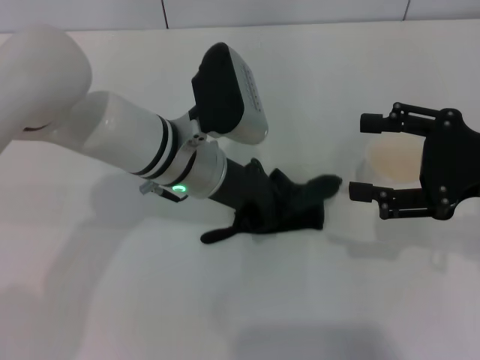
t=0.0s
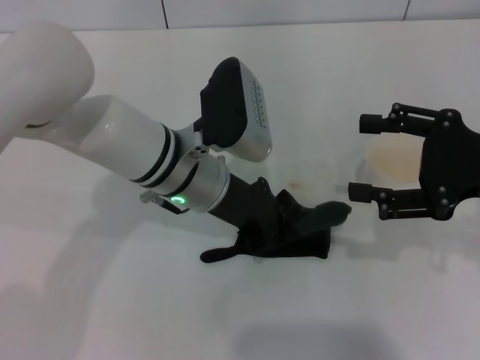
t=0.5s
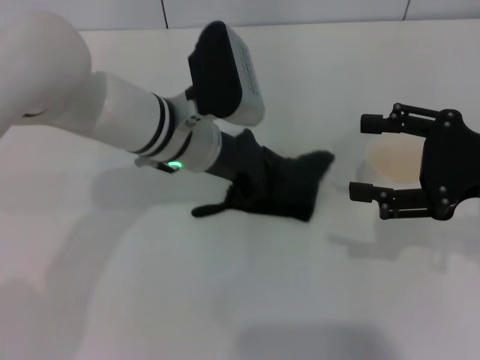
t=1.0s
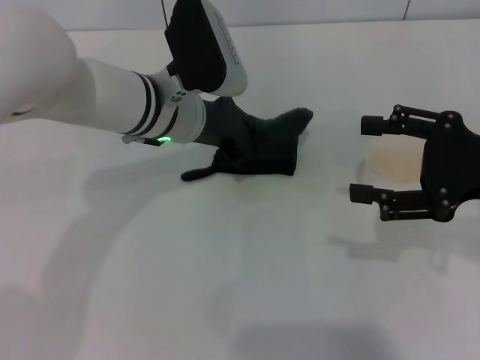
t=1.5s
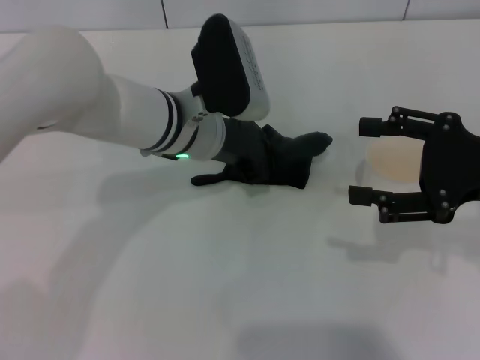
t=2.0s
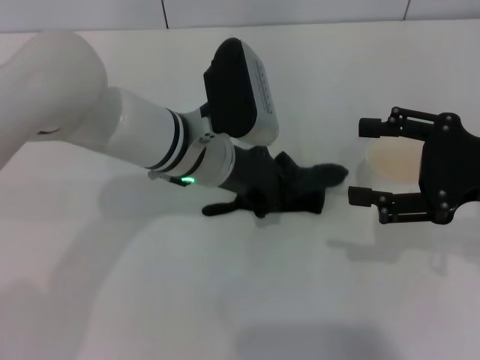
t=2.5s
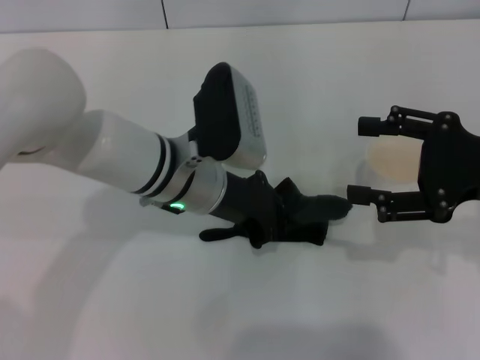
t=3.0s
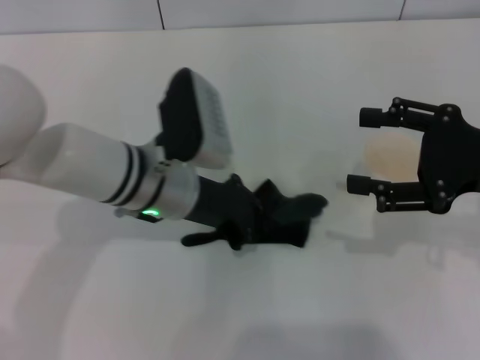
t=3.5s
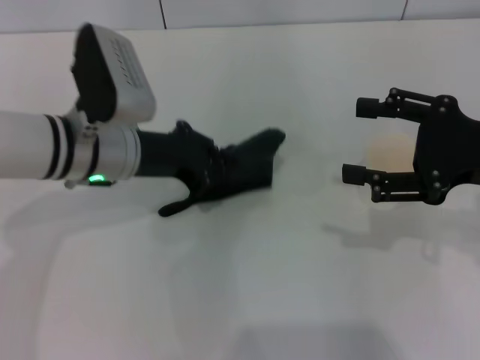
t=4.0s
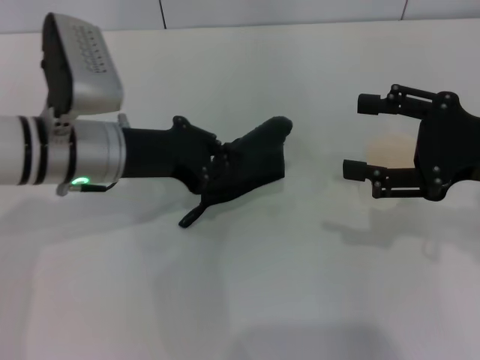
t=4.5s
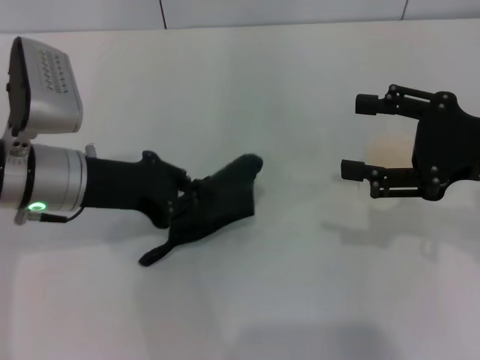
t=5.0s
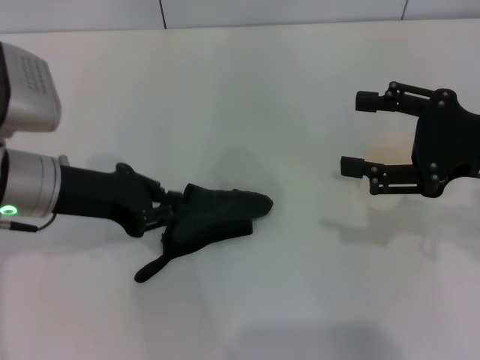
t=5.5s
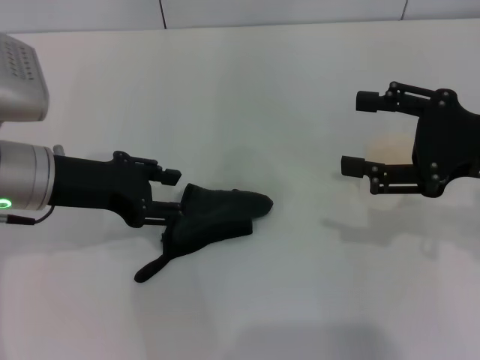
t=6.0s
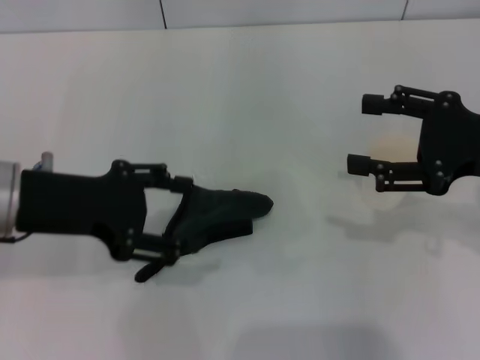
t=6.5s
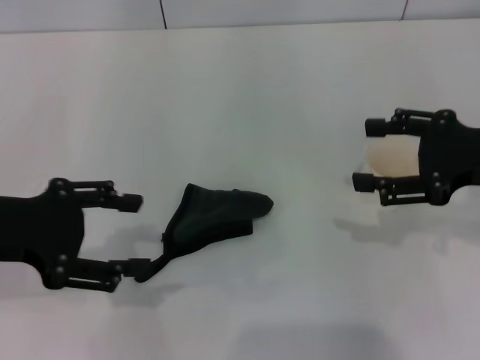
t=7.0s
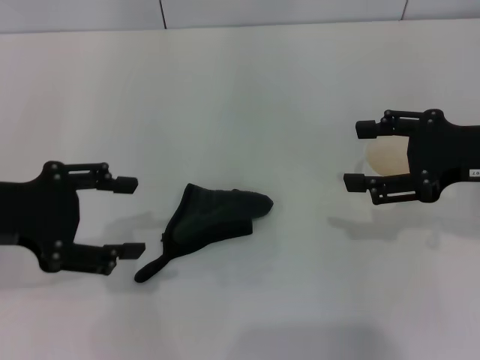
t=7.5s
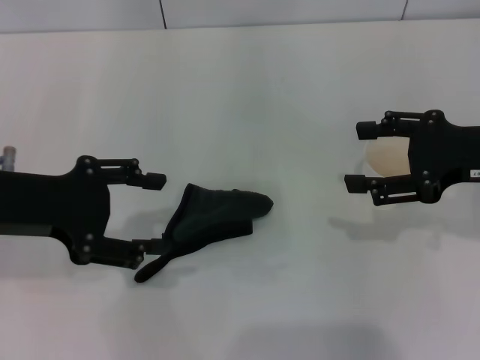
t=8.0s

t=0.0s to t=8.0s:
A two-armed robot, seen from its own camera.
Step, t=0.0s to t=3.0s: Wipe the stains off the table with the left gripper.
Step, t=3.5s to t=6.0s: Place the rag on the table with the left gripper.
t=0.0s to t=2.0s: The grippers make only small movements.
t=2.0s to t=4.0s: The left gripper travels to the left by some 10 cm.
t=4.0s to t=6.0s: The left gripper goes roughly 5 cm to the left, and opens.
t=6.0s to t=8.0s: The left gripper shifts by roughly 5 cm, and opens up.

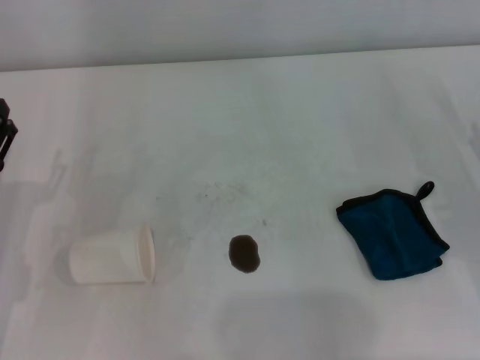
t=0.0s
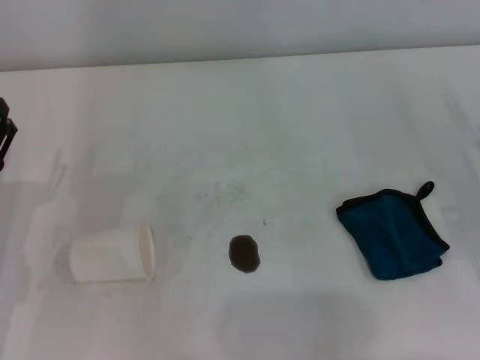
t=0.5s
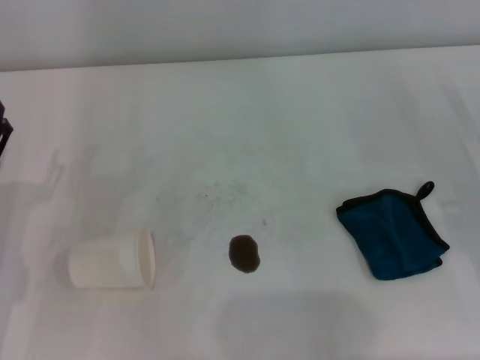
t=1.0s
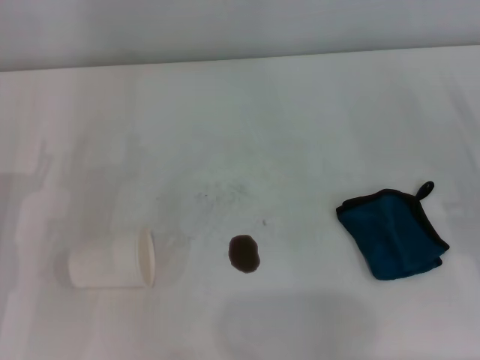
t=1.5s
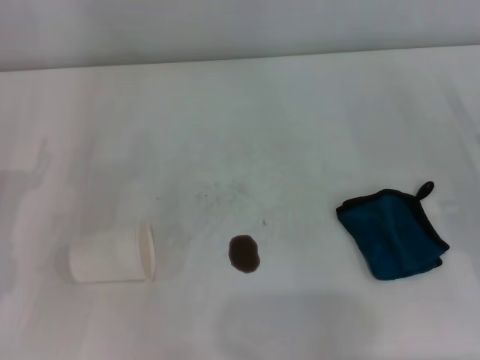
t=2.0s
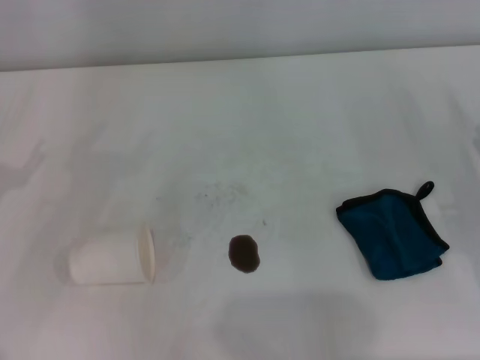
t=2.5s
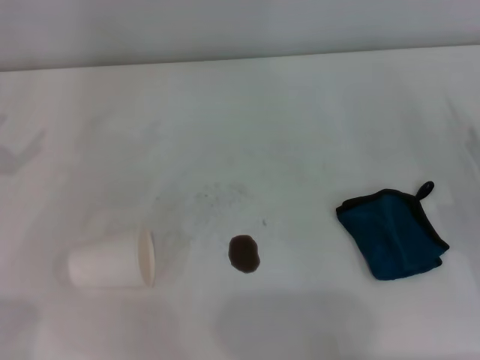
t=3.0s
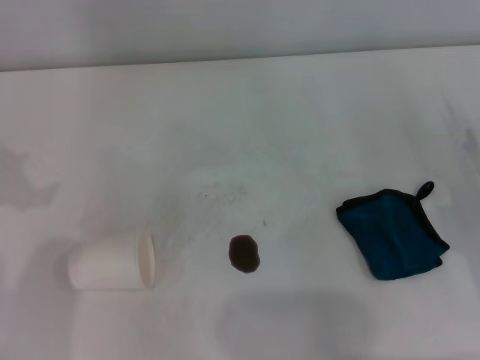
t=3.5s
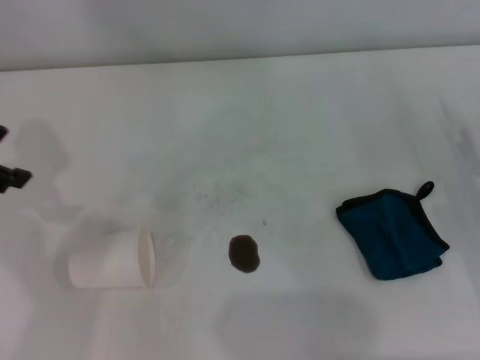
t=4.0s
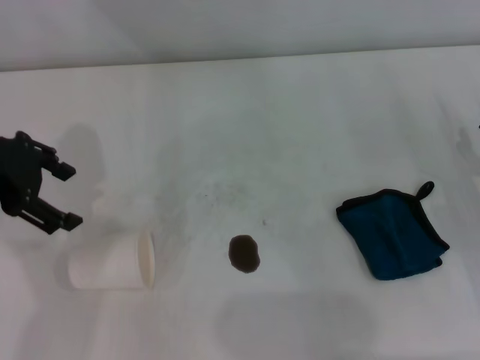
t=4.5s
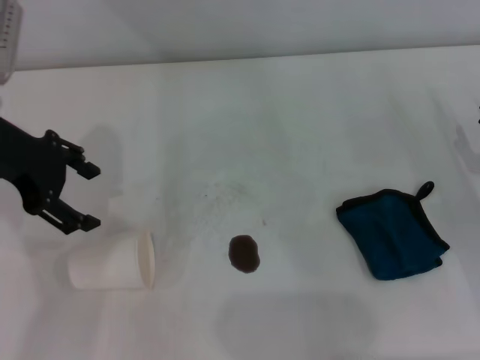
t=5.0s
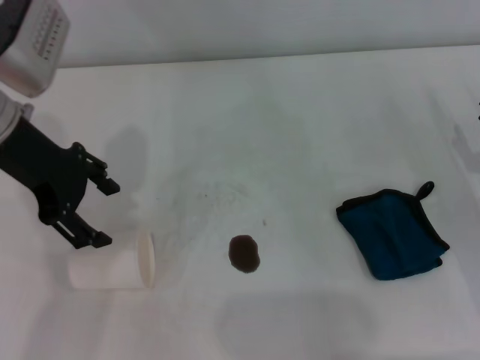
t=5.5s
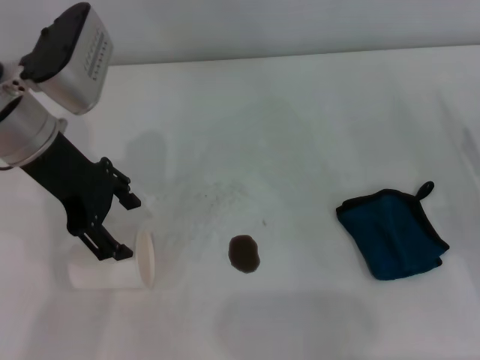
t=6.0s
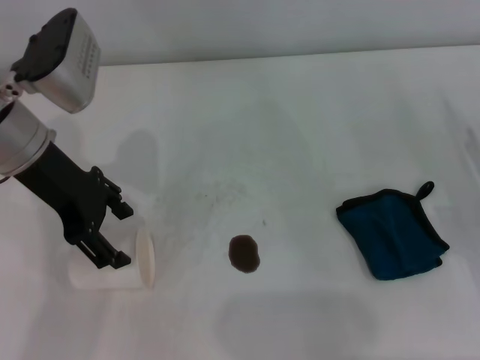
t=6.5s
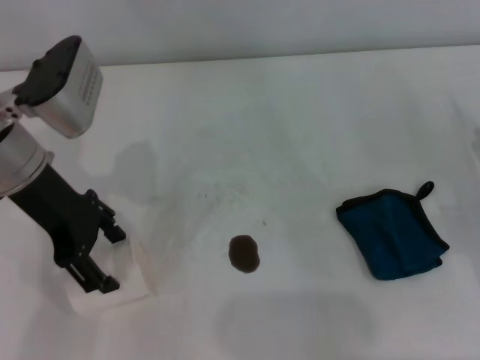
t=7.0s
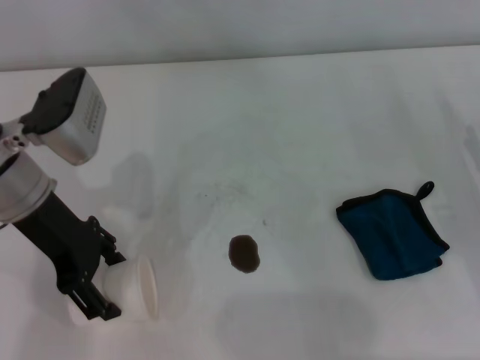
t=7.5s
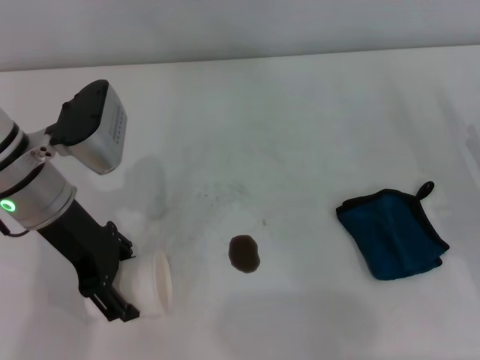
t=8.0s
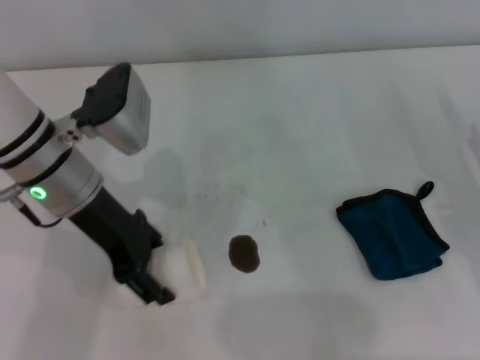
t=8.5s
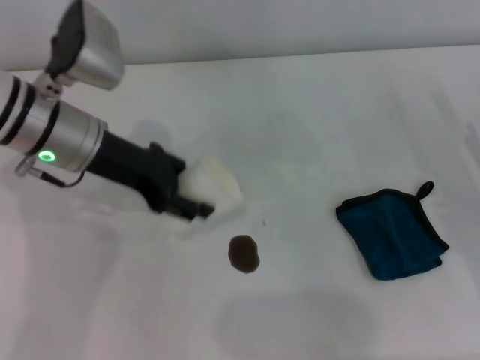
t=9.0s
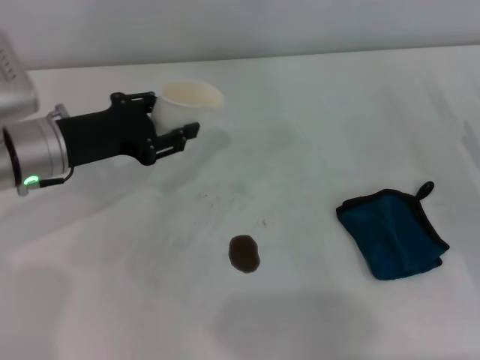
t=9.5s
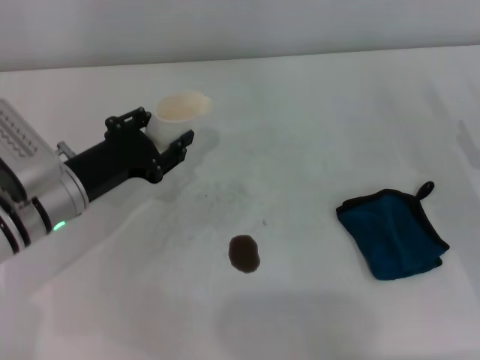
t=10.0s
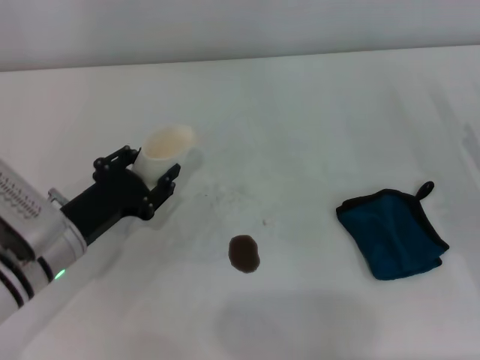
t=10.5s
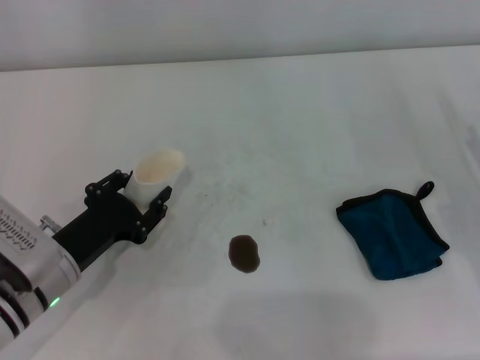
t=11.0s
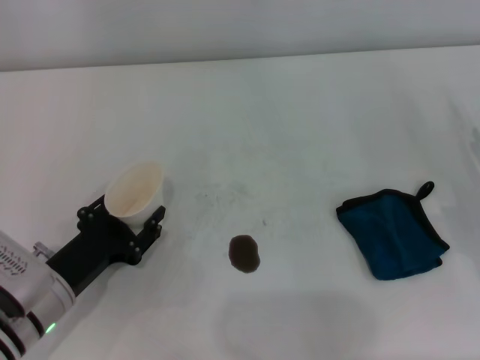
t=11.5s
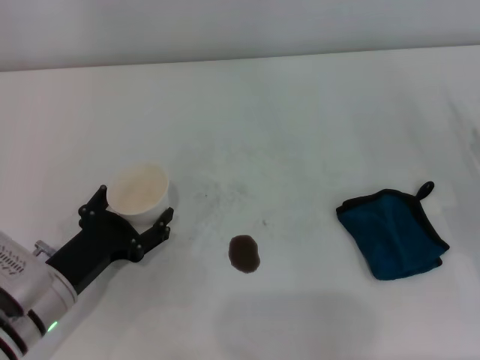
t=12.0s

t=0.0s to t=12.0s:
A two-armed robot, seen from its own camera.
Step, t=0.0s to t=8.0s: Grasp the paper cup with the left gripper.
Step, t=8.5s to t=11.5s: Stand the paper cup upright with the left gripper.
t=4.0s to t=6.0s: The left gripper moves to the right and downward, about 15 cm.
t=6.0s to t=8.0s: The left gripper moves downward, some 5 cm.
t=8.0s to t=10.0s: The left gripper heads downward, covering approximately 5 cm, and closes its fingers.
t=10.0s to t=12.0s: The left gripper shifts about 10 cm backward and downward, and opens up.

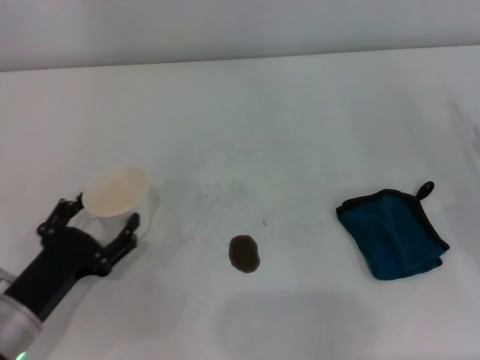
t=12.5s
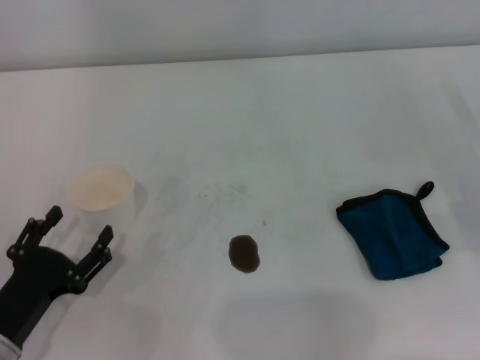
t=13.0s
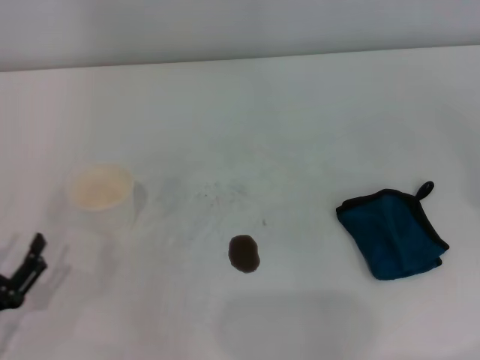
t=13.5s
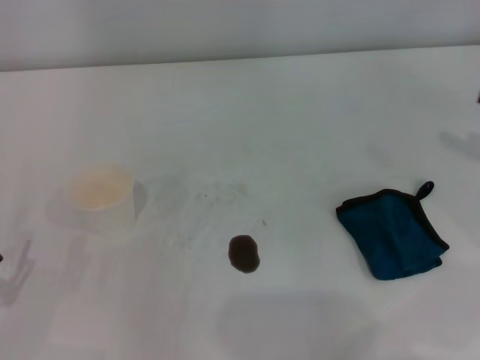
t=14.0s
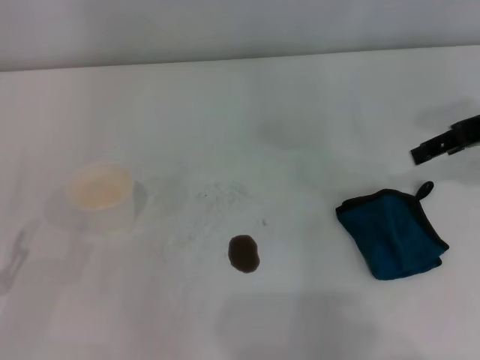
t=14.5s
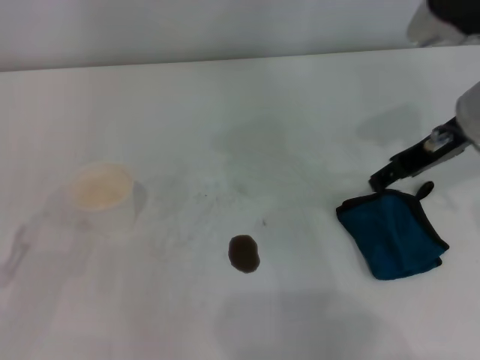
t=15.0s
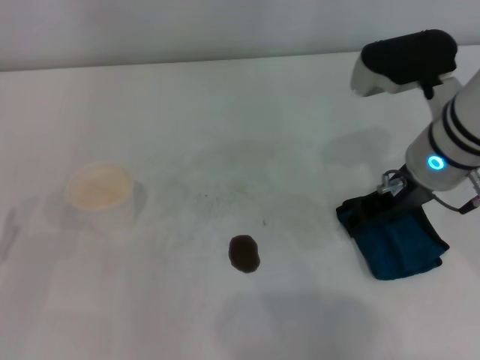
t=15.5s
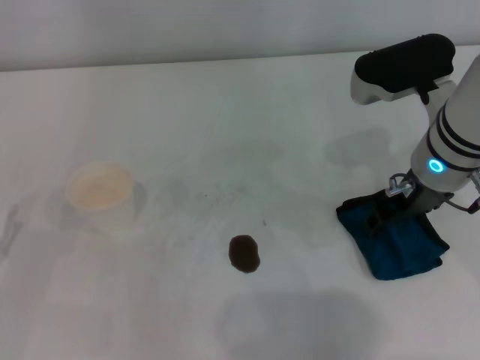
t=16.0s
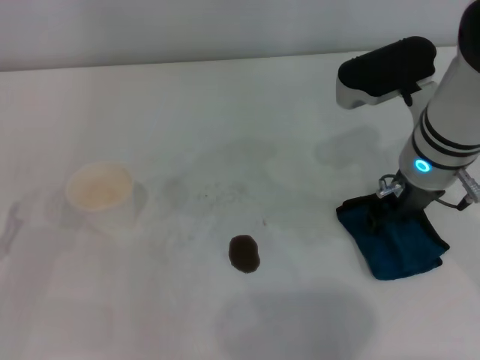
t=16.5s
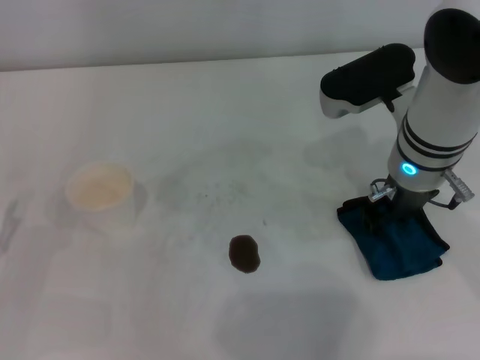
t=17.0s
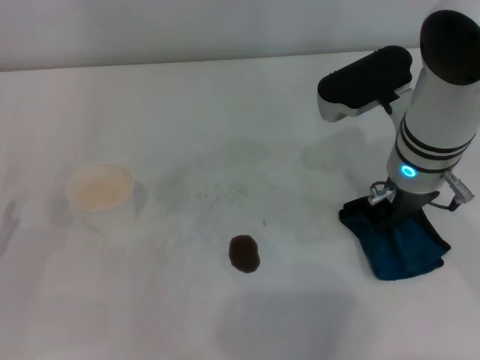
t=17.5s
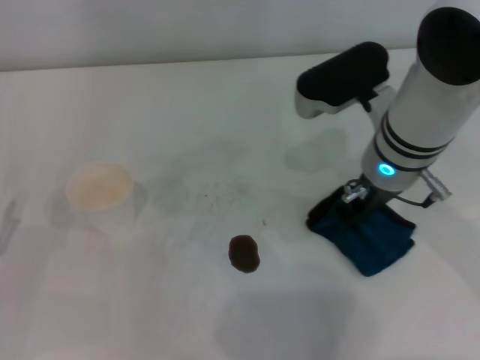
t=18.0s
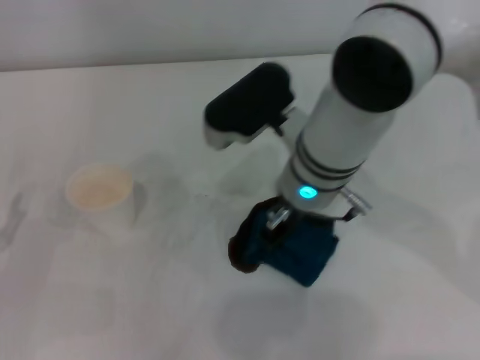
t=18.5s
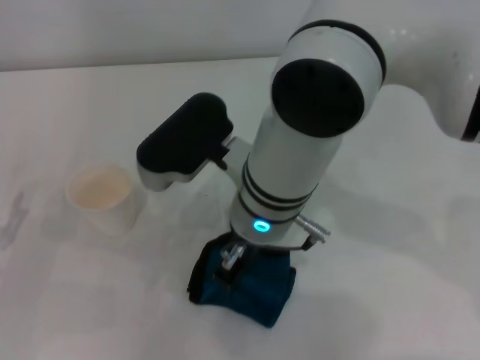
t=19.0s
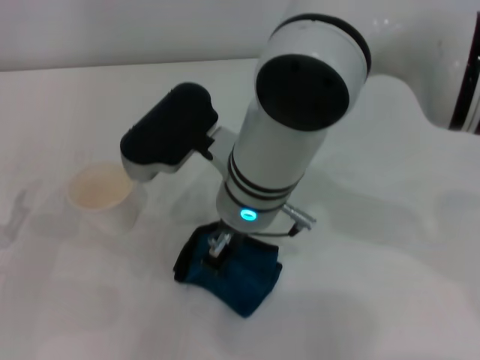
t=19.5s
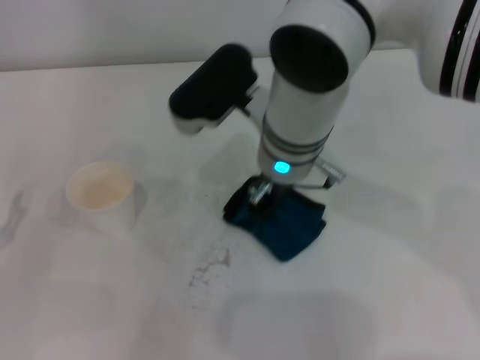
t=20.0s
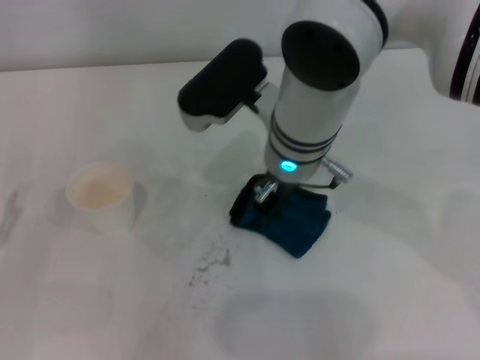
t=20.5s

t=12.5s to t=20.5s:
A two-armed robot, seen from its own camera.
Step, t=12.5s to t=17.5s: Grasp the rag with the right gripper.
t=12.5s to t=14.5s: The right gripper travels upward and forward by approximately 20 cm; the left gripper moves to the left and backward, roughly 10 cm.
t=14.5s to t=16.5s: The right gripper is displaced to the left and downward by about 15 cm.
t=16.5s to t=18.5s: The right gripper moves to the left, roughly 10 cm, and closes up.
